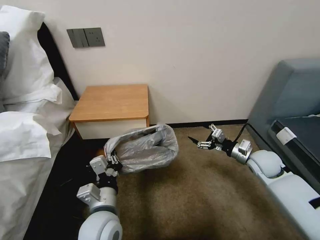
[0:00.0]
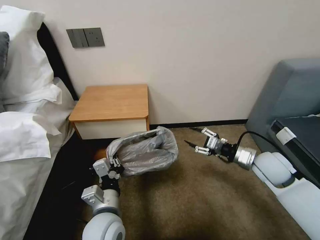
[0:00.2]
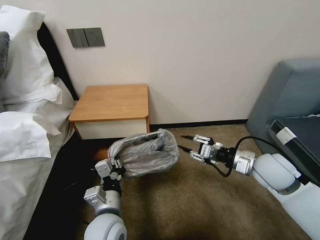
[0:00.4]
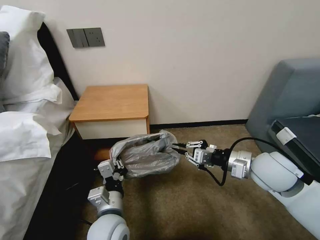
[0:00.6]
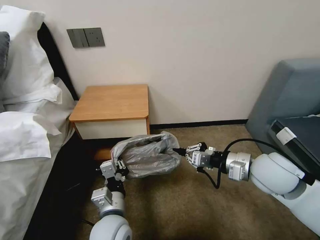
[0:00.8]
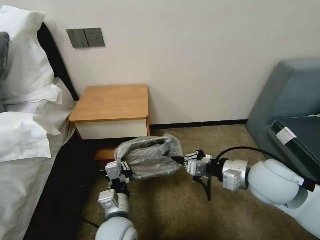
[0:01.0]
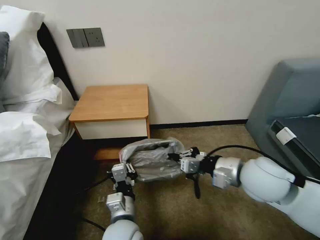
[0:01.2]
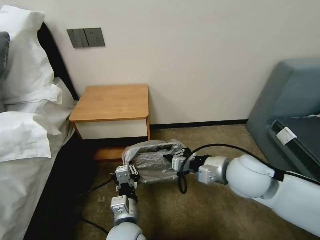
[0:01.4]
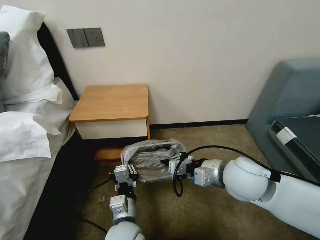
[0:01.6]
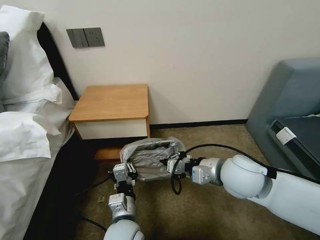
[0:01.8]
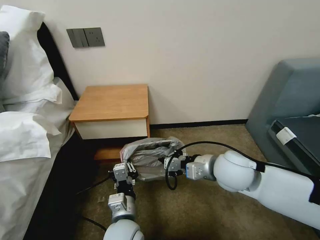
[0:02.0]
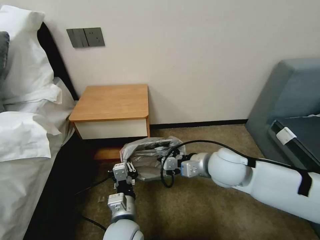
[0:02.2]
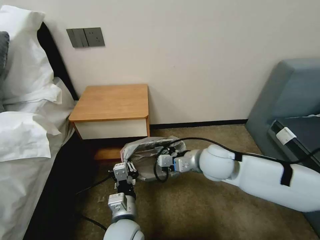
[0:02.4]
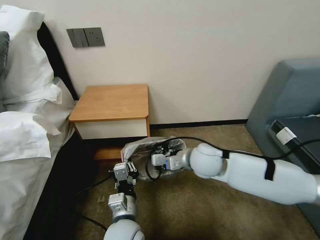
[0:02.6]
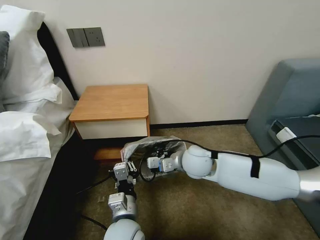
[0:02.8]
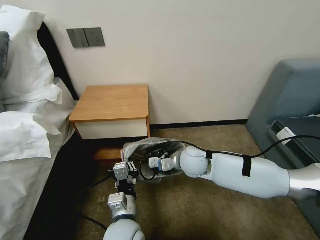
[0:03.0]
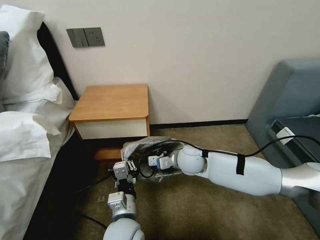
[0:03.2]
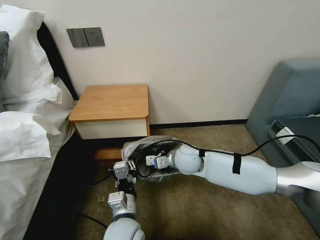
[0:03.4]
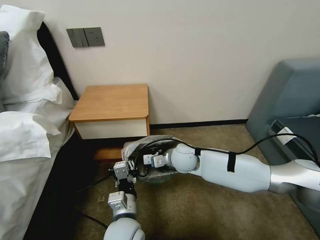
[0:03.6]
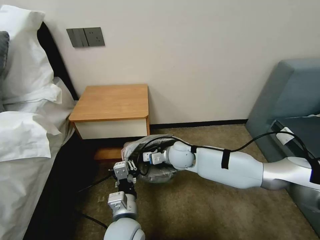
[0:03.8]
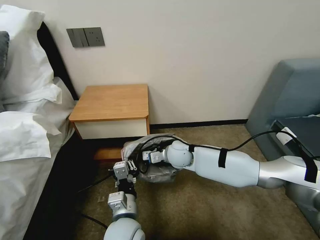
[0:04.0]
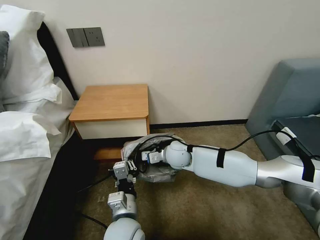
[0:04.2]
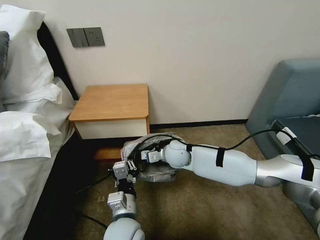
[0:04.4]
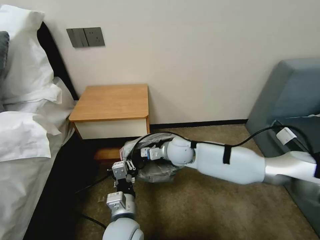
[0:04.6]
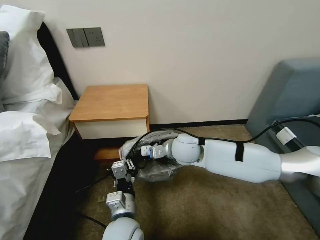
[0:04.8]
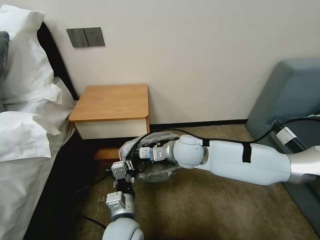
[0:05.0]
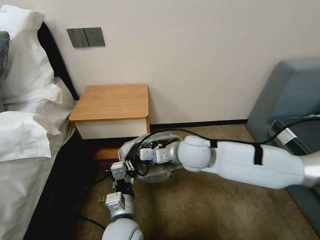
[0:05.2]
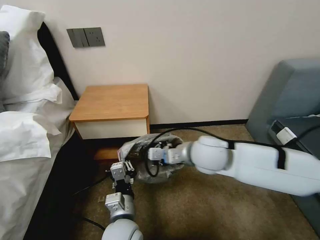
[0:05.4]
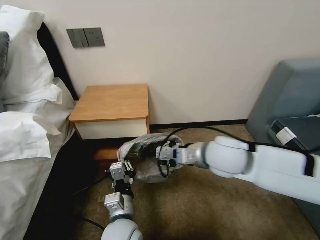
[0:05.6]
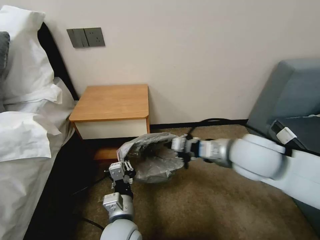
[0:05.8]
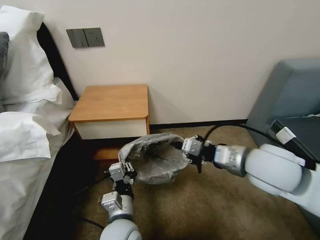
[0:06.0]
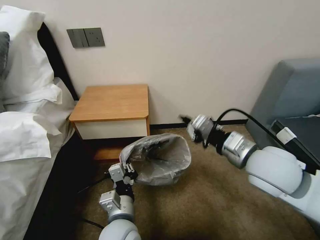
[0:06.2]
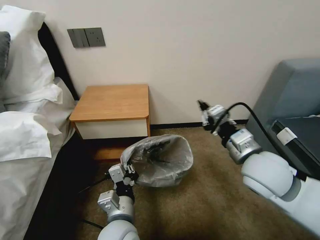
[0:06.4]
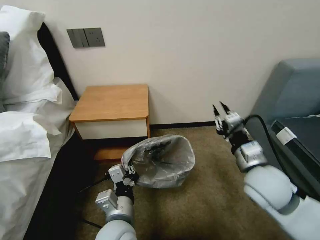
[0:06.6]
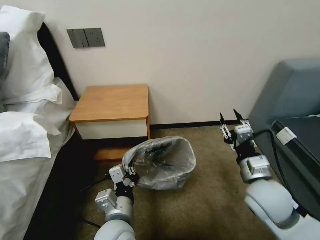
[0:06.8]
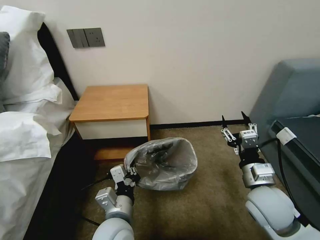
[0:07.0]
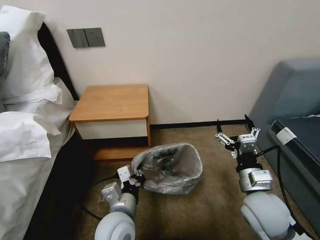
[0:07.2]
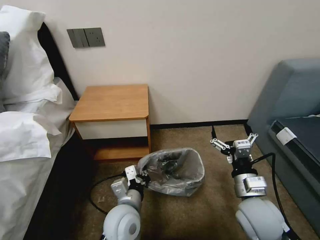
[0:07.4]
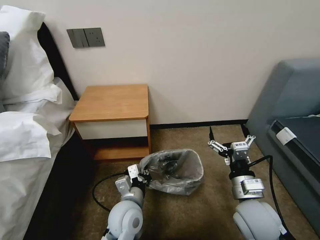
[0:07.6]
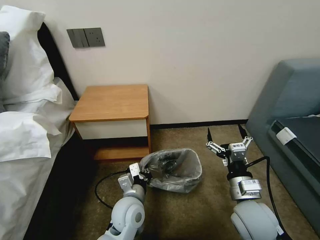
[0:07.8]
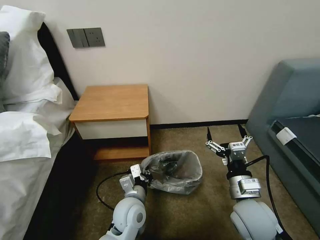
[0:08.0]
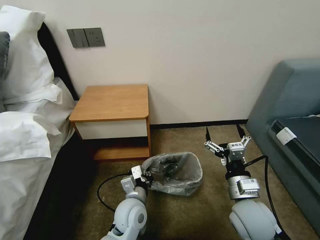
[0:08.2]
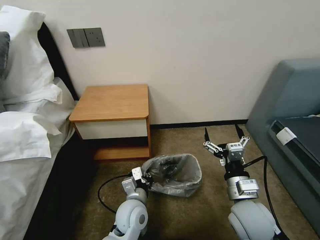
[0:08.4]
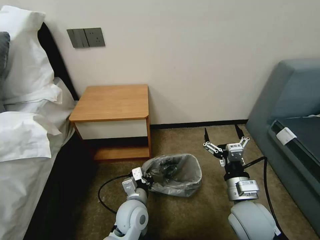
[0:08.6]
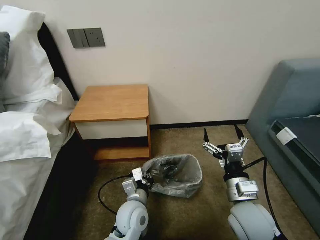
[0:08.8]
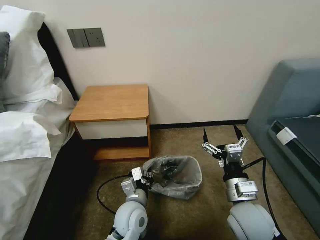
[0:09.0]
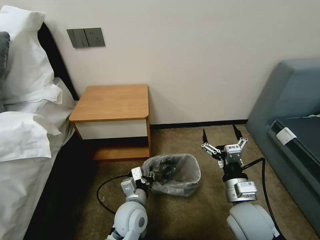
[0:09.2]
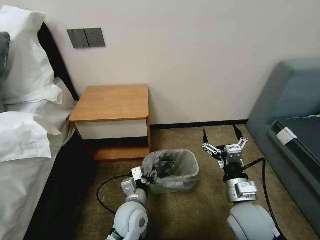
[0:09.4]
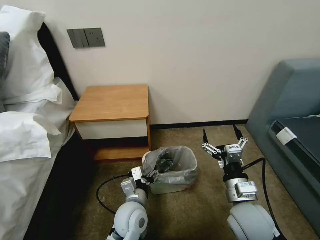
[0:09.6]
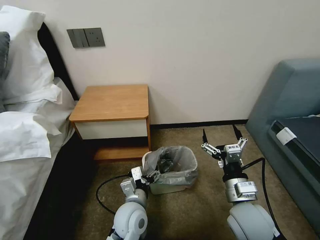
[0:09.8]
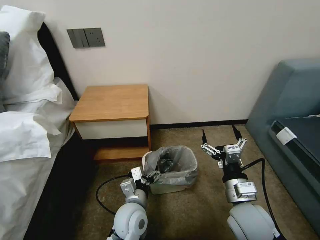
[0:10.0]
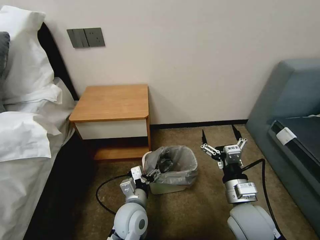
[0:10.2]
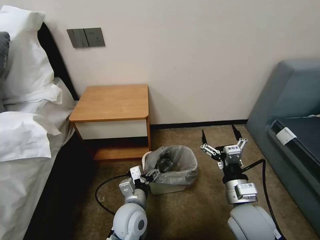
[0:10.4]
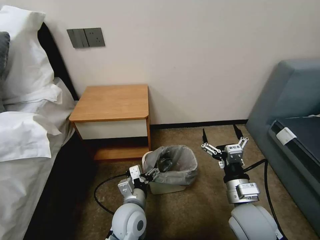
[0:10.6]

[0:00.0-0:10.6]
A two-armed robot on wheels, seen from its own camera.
Task of the whole recording: Pick up the garbage bag from the table and place it over the trash can.
0:00.0 to 0:01.6: The left gripper heads to the right, covering about 5 cm, while the right gripper heads to the left, upward and backward, covering roughly 25 cm, and closes up.
0:01.6 to 0:03.0: The right gripper heads forward, to the left and downward, covering about 15 cm.
0:03.0 to 0:04.6: The right gripper moves about 5 cm.
0:04.6 to 0:06.0: The right gripper goes approximately 25 cm to the right, backward and upward.
0:06.0 to 0:07.6: The left gripper moves forward, roughly 5 cm, while the right gripper shifts some 15 cm downward and backward, and opens its fingers.
0:07.6 to 0:09.0: The grippers make only small movements.
0:09.0 to 0:10.6: The left gripper opens up.

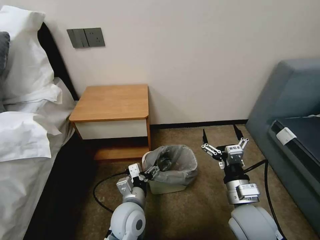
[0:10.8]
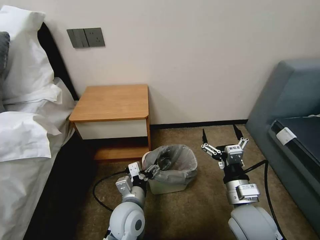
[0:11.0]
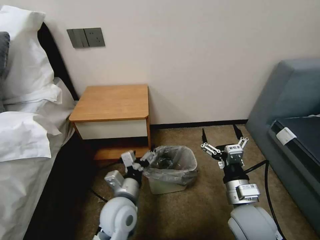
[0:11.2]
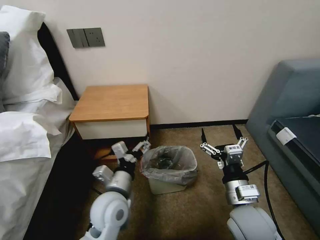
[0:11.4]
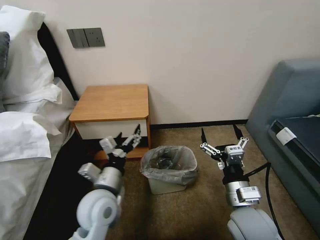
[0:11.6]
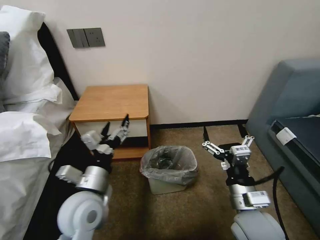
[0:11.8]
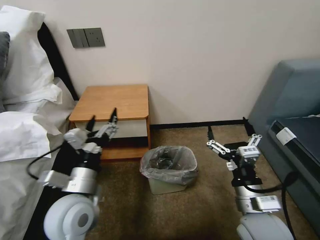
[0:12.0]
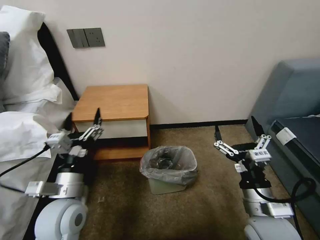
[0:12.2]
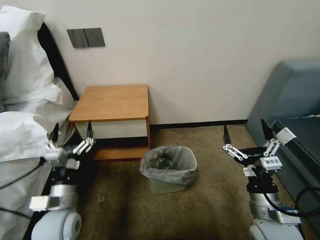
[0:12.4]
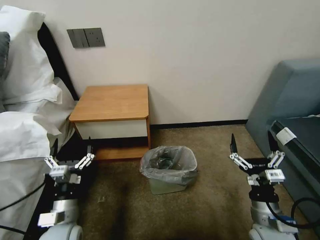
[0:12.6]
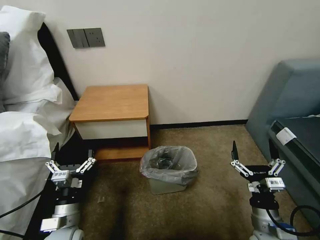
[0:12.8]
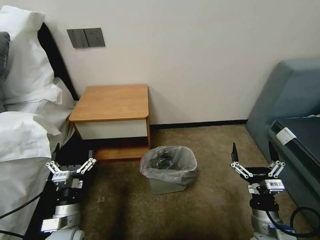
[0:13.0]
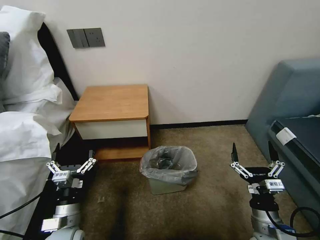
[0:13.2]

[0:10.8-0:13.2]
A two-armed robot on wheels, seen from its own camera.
Task of the whole recording: Pick up the garbage bag from the table and place it over the trash can.
0:10.8 to 0:12.0: The left gripper is displaced upward and to the left by approximately 15 cm.
0:12.0 to 0:13.2: The right gripper goes roughly 15 cm downward and to the right. The left gripper moves downward and to the left, approximately 15 cm.

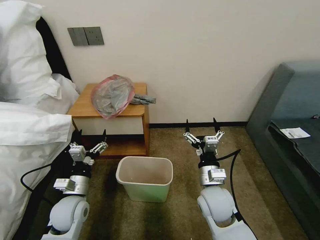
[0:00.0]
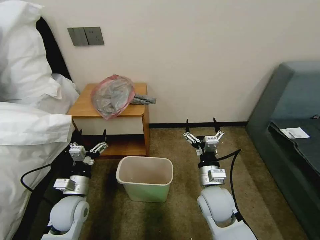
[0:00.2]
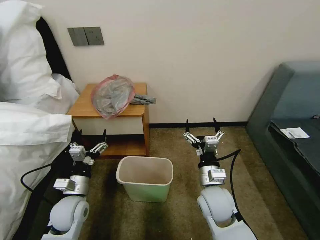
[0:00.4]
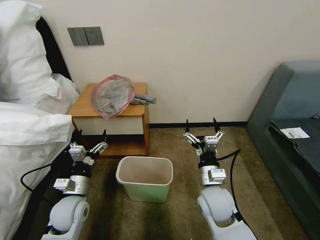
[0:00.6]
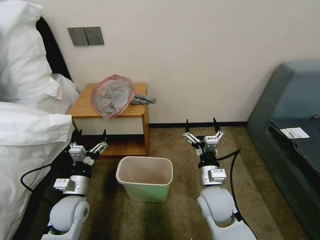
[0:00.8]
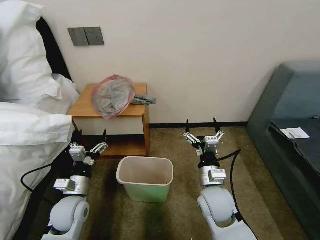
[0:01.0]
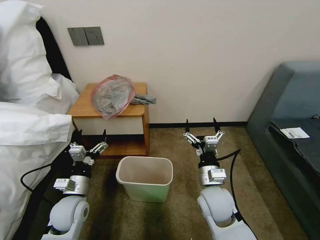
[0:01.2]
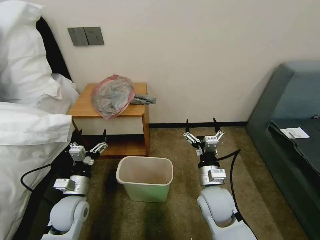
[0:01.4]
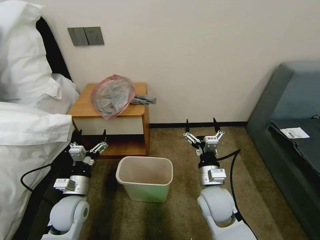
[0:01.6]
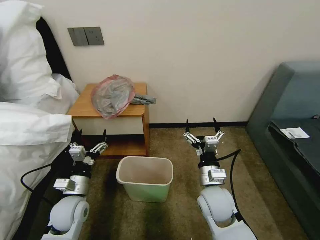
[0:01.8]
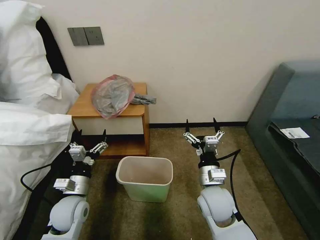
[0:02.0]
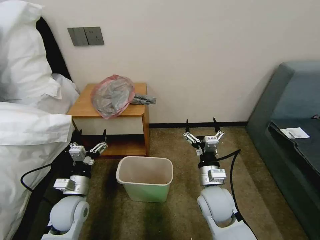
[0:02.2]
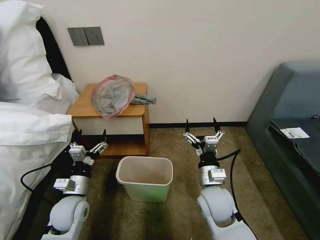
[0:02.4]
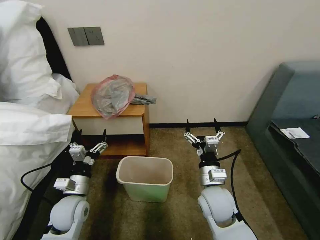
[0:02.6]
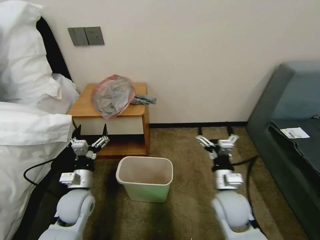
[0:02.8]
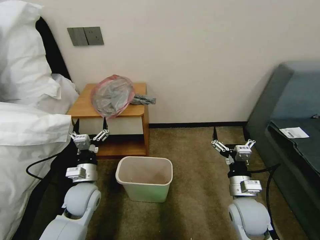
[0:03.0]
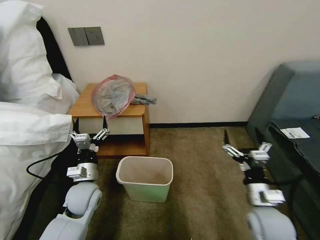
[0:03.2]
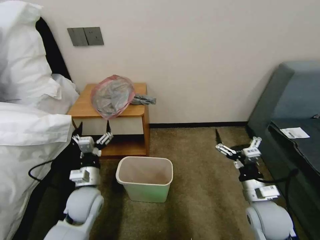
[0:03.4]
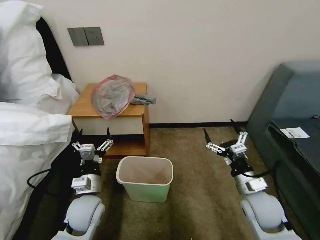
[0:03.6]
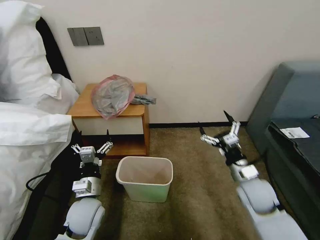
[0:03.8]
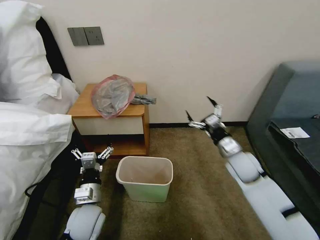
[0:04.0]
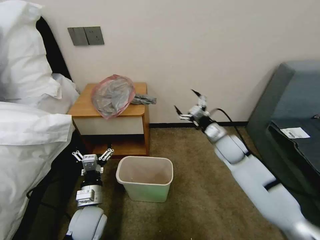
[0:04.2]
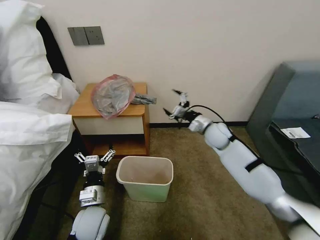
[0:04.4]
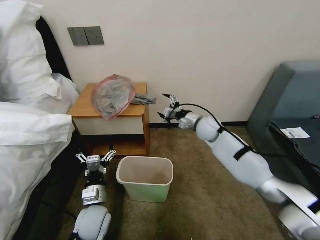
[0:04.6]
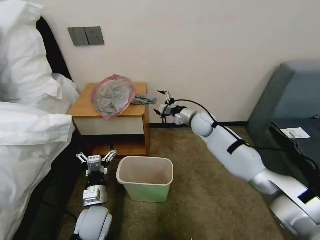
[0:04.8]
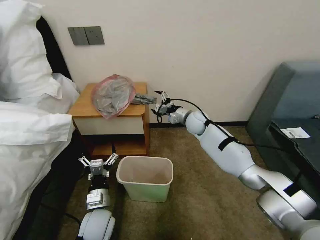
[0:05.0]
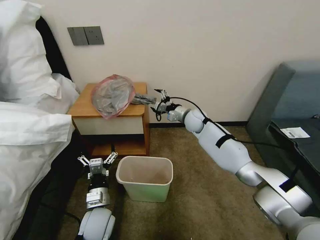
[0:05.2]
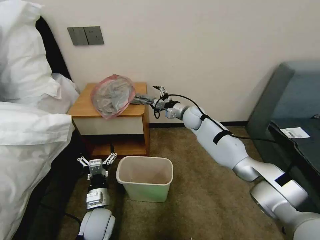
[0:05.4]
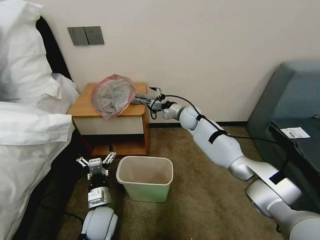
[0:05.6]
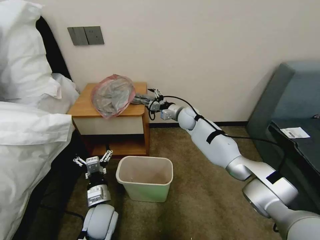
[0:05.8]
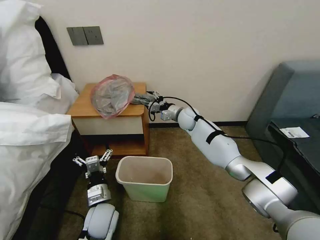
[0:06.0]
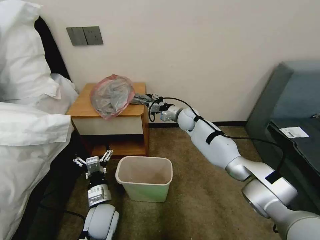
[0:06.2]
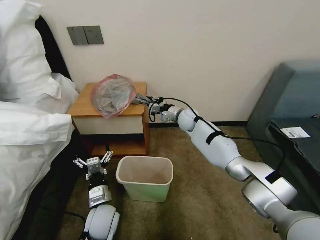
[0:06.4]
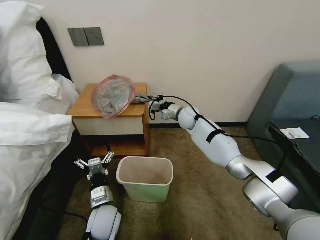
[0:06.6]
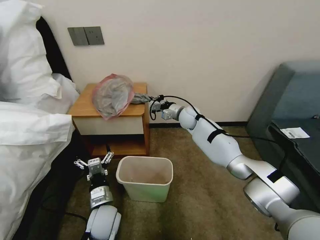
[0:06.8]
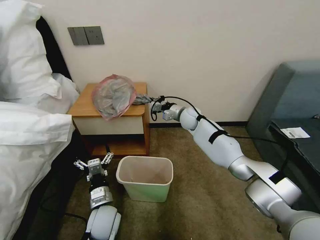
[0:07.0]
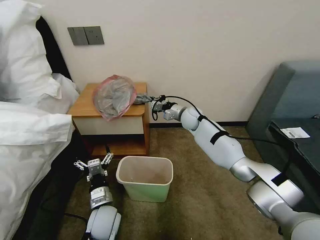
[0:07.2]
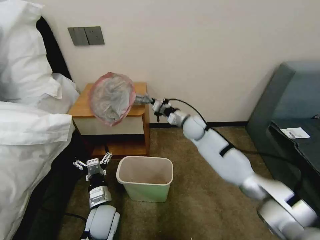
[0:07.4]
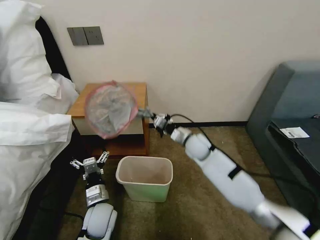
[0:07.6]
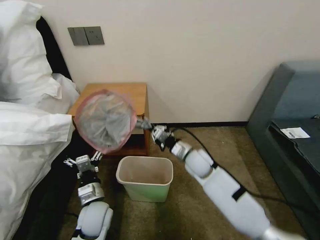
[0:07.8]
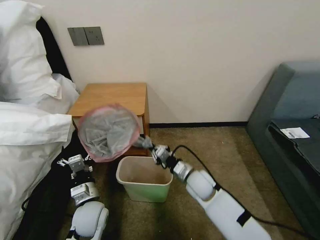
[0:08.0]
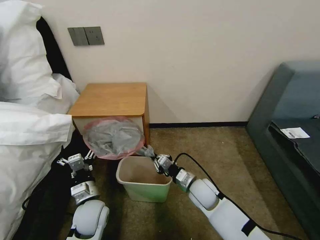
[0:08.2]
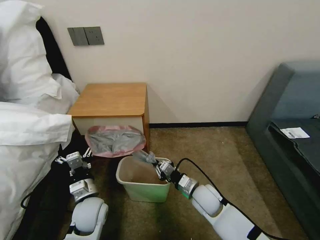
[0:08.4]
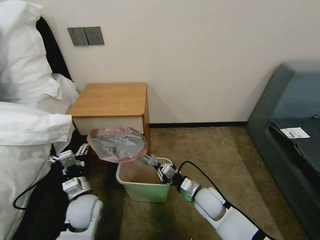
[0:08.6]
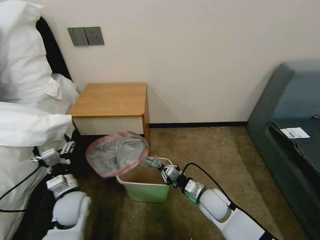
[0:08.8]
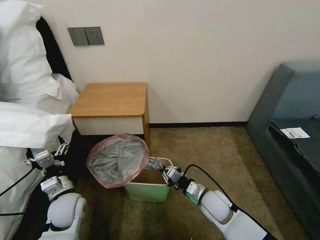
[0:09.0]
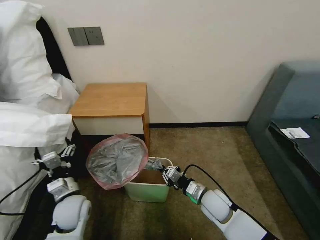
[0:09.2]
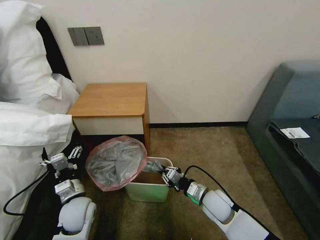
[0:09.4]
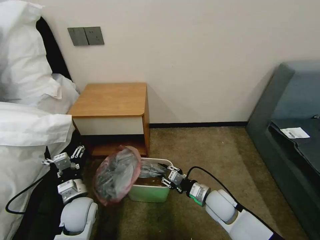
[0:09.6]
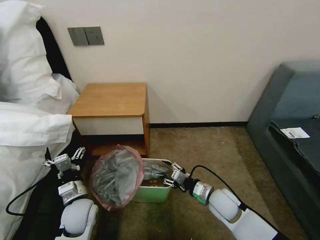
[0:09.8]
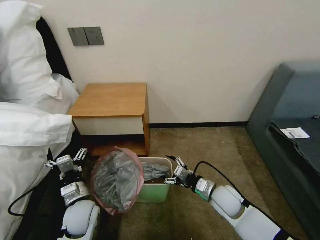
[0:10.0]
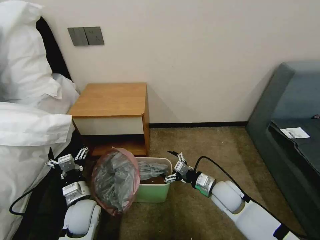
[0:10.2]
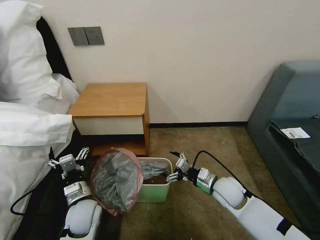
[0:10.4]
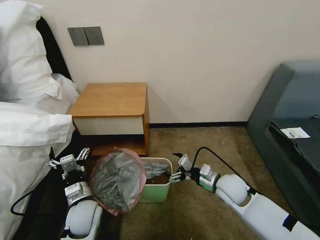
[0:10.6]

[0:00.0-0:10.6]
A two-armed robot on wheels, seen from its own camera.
Task of the whole recording: Pick up the garbage bag from the table and place it over the trash can.
0:01.6 to 0:03.0: The left gripper shifts by about 5 cm. The right gripper is displaced to the right by roughly 10 cm.
0:03.0 to 0:04.6: The right gripper goes roughly 30 cm forward; the left gripper is displaced backward by about 5 cm.
0:04.6 to 0:06.0: The right gripper is displaced to the left and forward by roughly 10 cm.
0:06.0 to 0:07.6: The right gripper shifts some 15 cm backward, and closes its fingers.
0:07.6 to 0:09.0: The right gripper goes approximately 20 cm backward and downward. The left gripper shifts about 10 cm to the left.
0:09.0 to 0:10.6: The left gripper moves to the right, approximately 5 cm, while the right gripper goes some 10 cm upward and to the right, and opens up.
